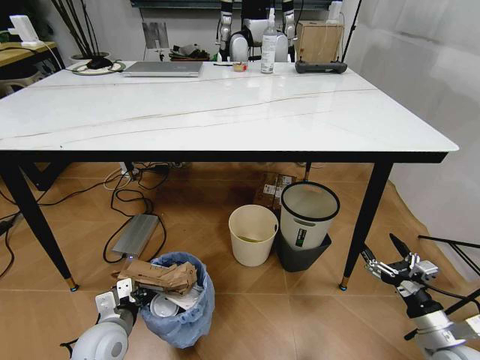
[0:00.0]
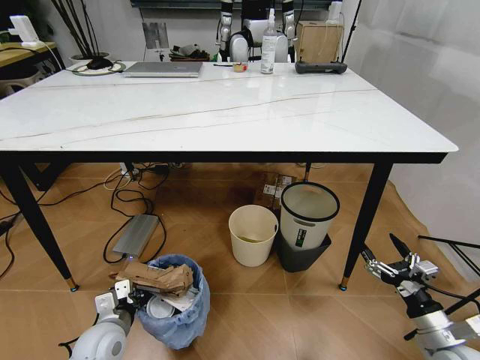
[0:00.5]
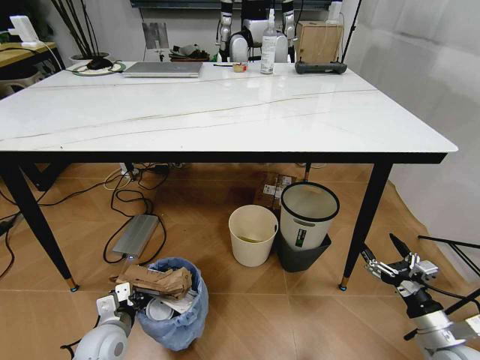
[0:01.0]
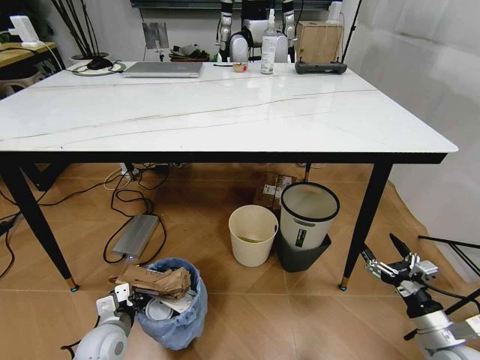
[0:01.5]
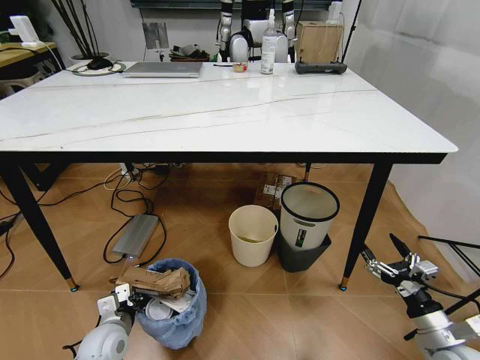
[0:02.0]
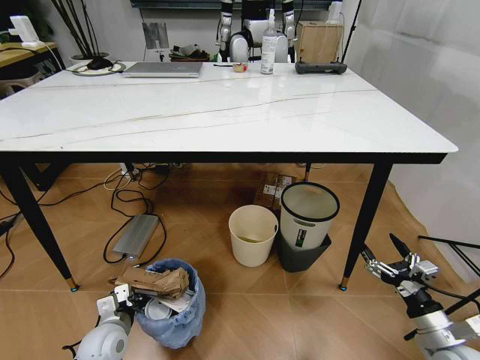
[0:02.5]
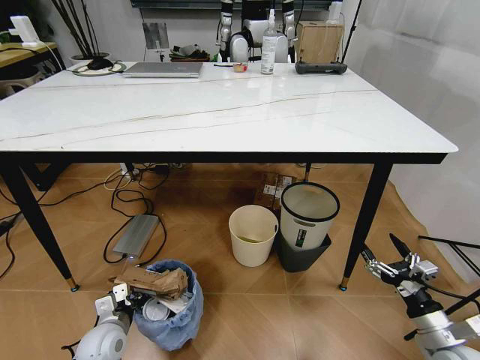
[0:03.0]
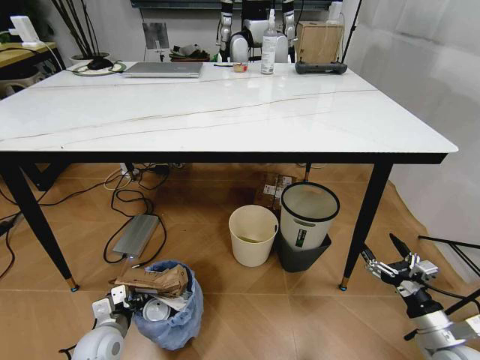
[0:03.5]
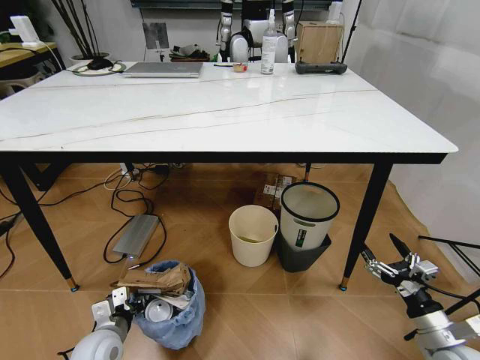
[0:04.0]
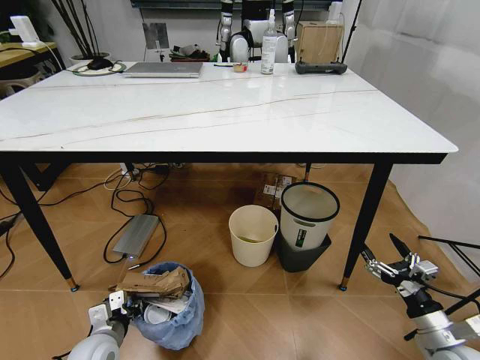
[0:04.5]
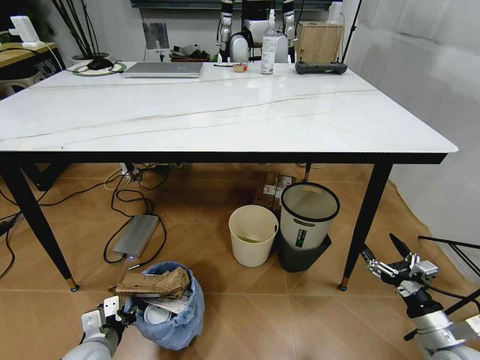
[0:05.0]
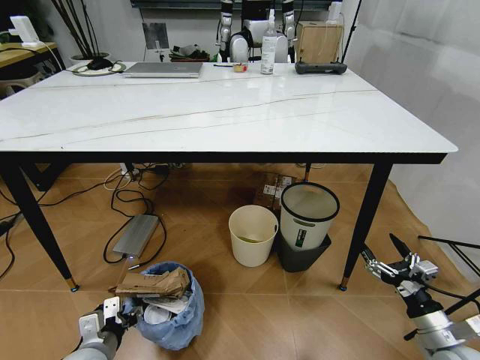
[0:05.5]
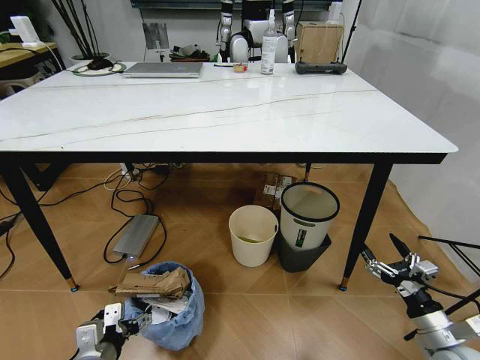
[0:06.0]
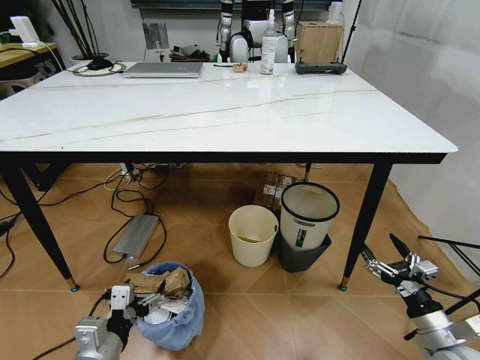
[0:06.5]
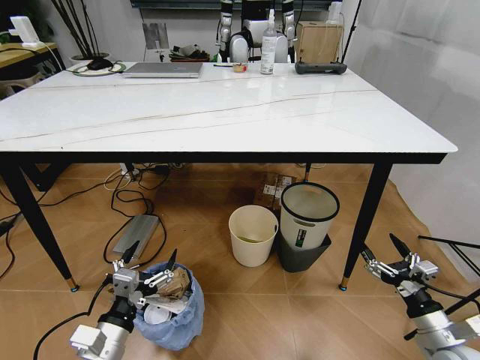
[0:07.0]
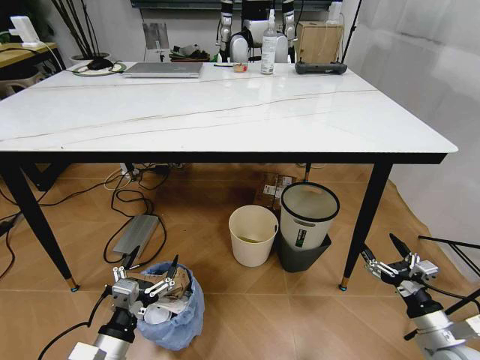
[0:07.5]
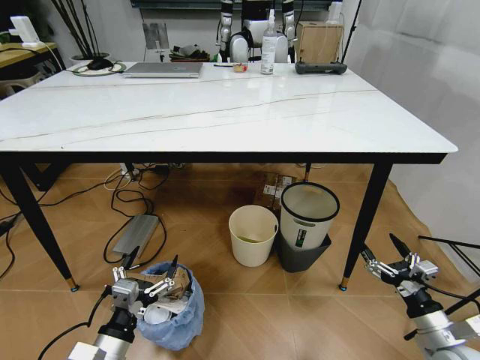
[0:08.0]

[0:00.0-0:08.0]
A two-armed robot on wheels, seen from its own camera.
Task of the whole recording: Pick up the trash bin and place the trash from the table into it.
0:00.0 to 0:02.0: The left gripper shifts some 5 cm downward.
0:02.0 to 0:04.0: The grippers move only a little.
0:04.0 to 0:06.0: The left gripper is displaced backward and upward by some 10 cm, and opens up.
0:06.0 to 0:08.0: The left gripper shifts by about 5 cm.

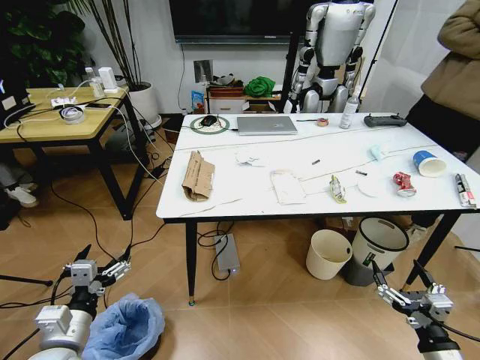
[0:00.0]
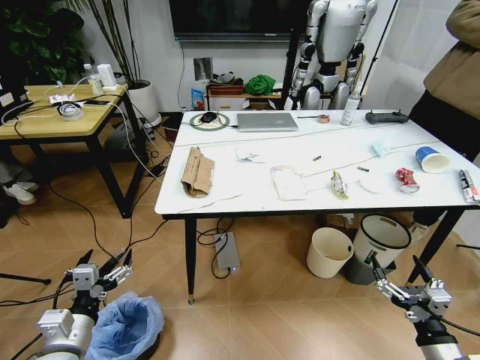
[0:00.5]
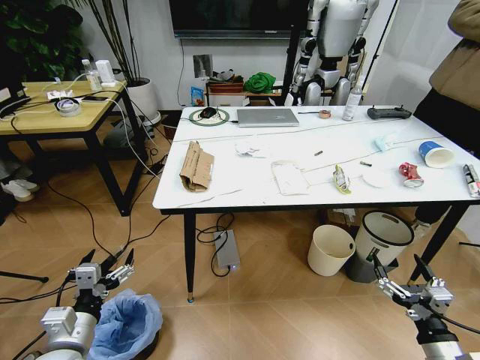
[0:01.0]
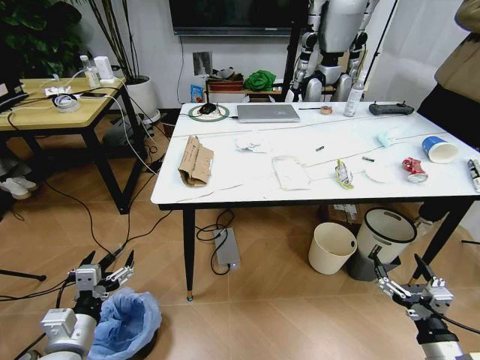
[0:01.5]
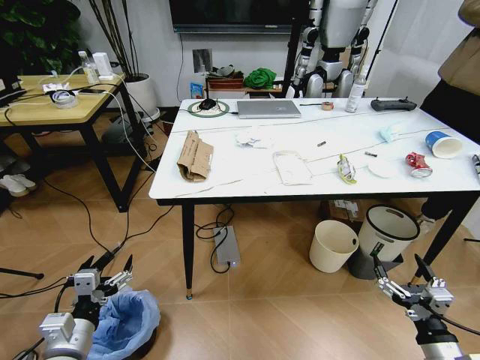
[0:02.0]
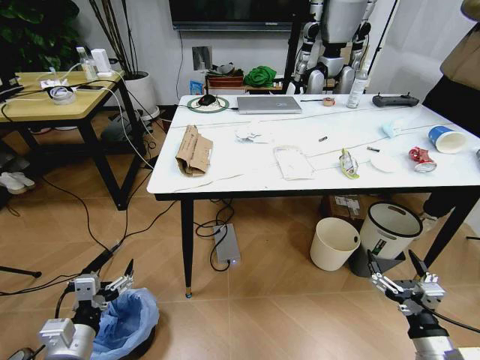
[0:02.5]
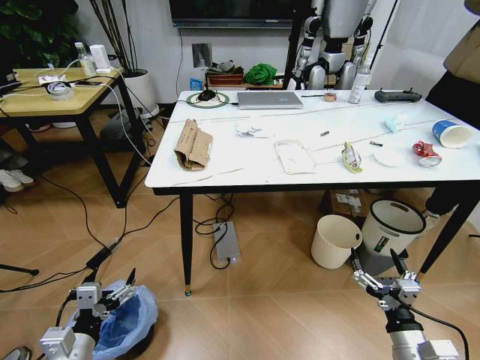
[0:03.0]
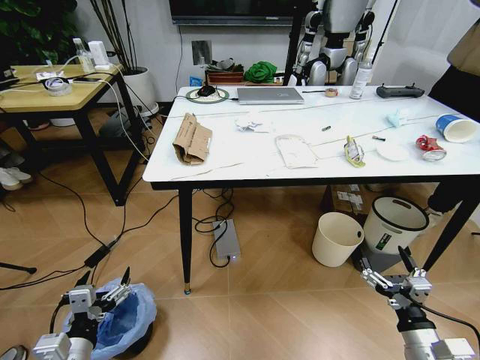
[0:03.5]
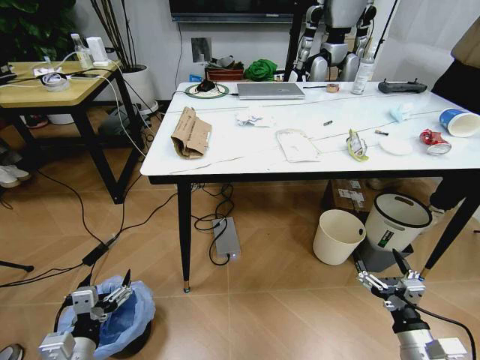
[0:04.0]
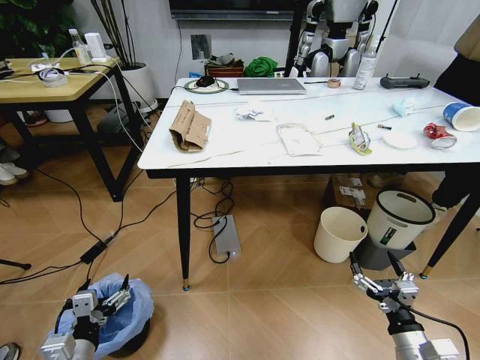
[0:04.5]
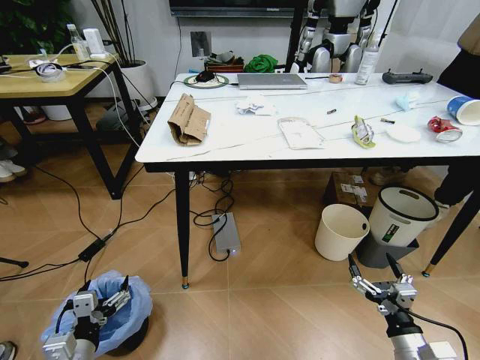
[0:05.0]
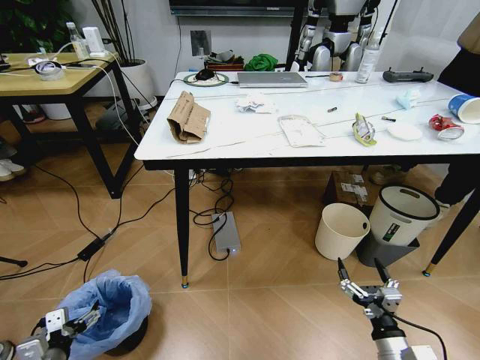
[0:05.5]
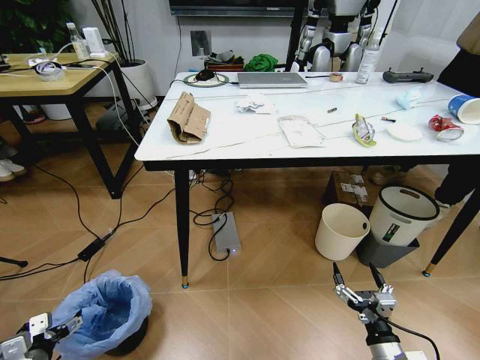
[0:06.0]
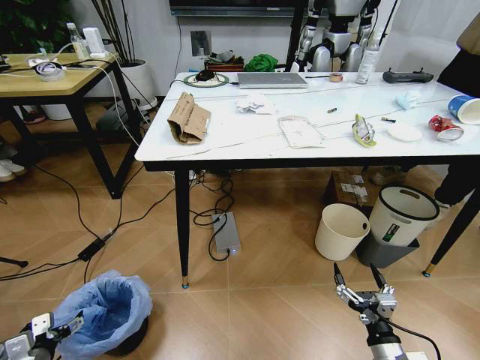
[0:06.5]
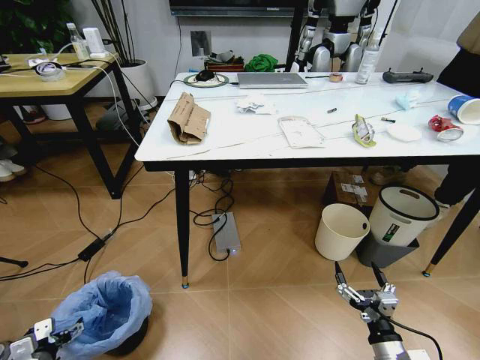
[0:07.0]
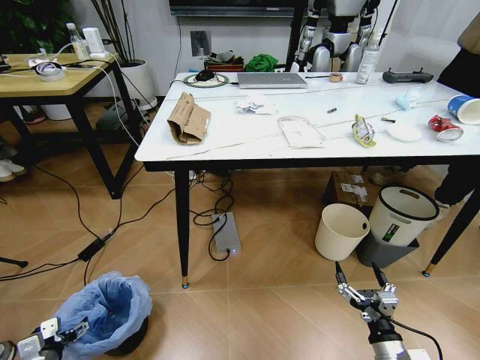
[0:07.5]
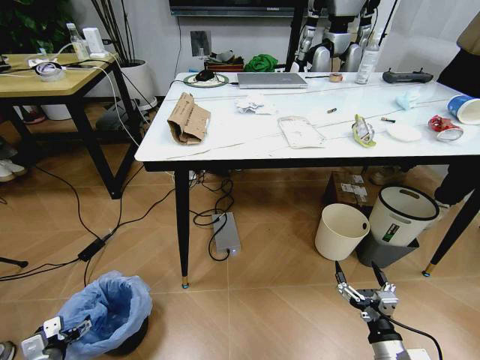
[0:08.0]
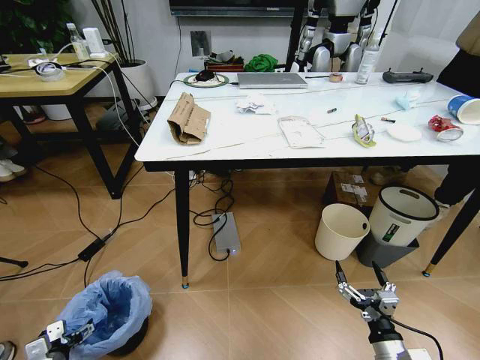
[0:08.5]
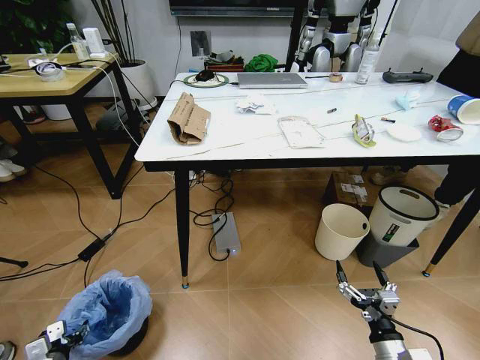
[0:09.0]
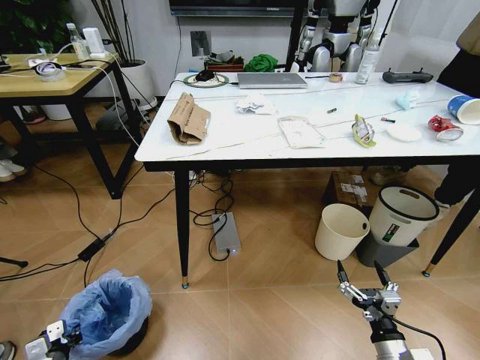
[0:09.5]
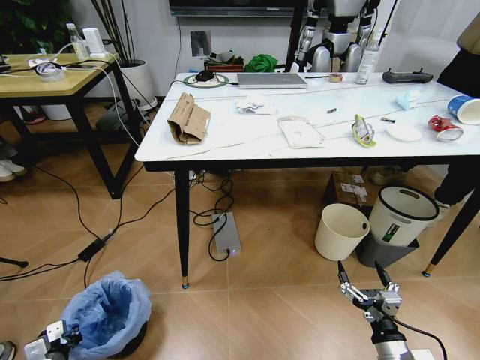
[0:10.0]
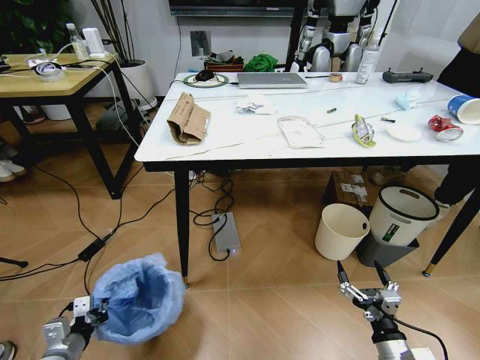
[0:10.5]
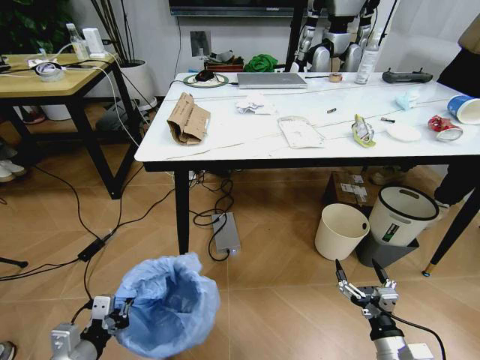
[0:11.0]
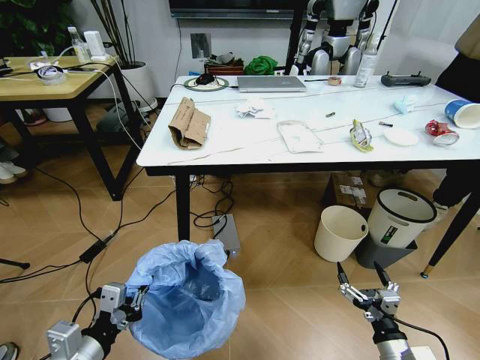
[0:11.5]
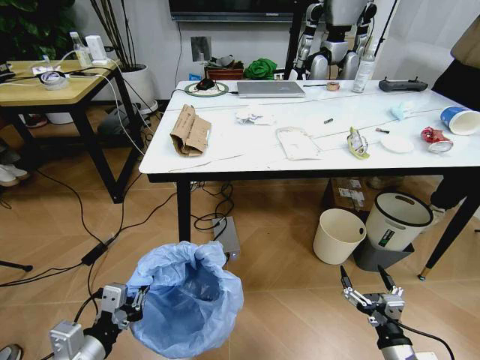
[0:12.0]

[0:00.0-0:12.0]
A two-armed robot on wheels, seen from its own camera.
Task of the whole recording: Pick up the trash bin and place the trash from the table into it.
0:04.0 to 0:06.0: The right gripper changes place by about 5 cm. Meanwhile the left gripper heads to the left and downward, covering roughly 20 cm.
0:06.0 to 0:08.0: The left gripper heads downward, covering some 5 cm.
0:08.0 to 0:10.0: The left gripper closes its fingers.
0:10.0 to 0:12.0: The left gripper travels upward and to the right by some 30 cm.

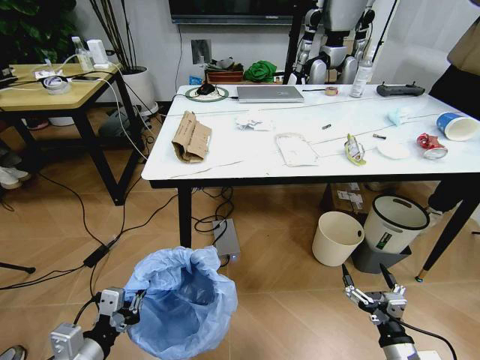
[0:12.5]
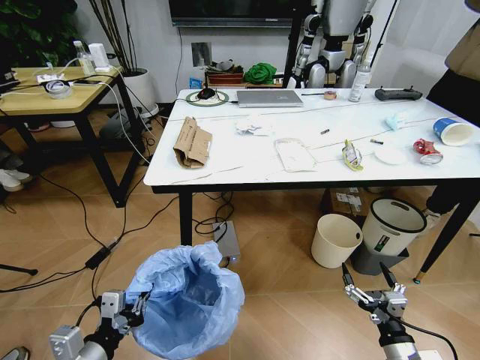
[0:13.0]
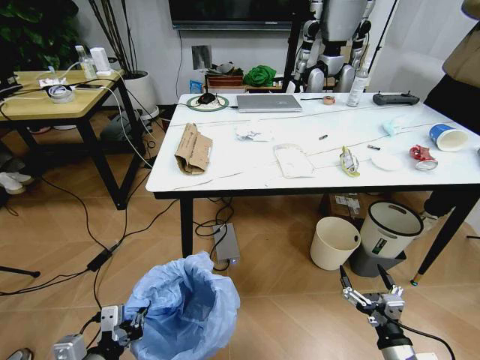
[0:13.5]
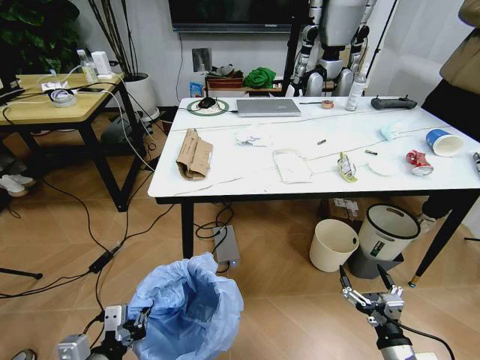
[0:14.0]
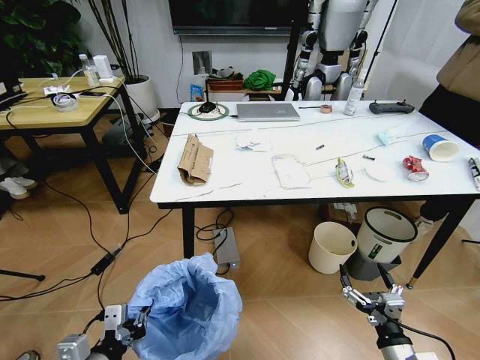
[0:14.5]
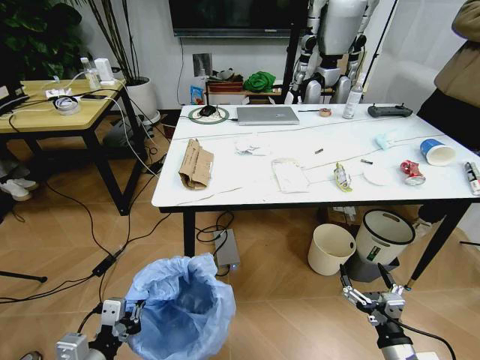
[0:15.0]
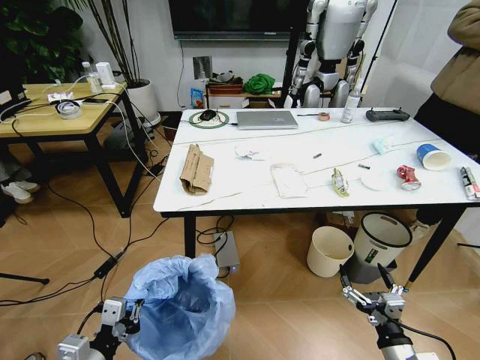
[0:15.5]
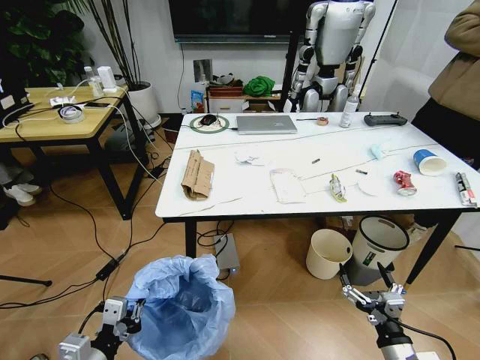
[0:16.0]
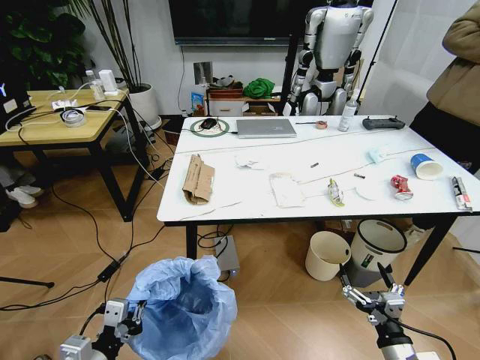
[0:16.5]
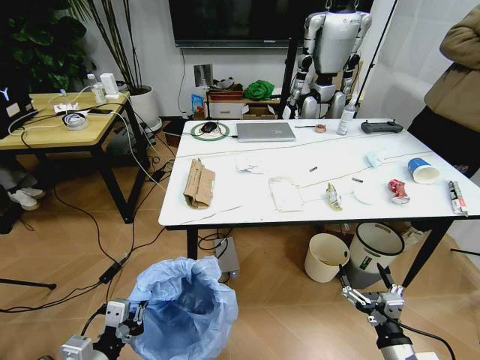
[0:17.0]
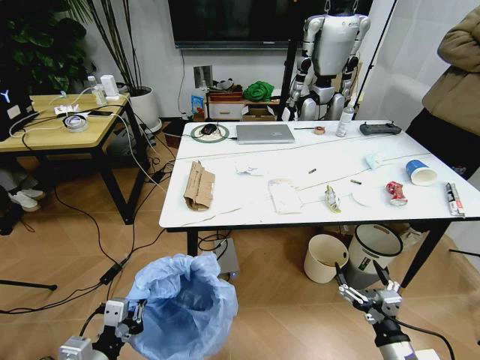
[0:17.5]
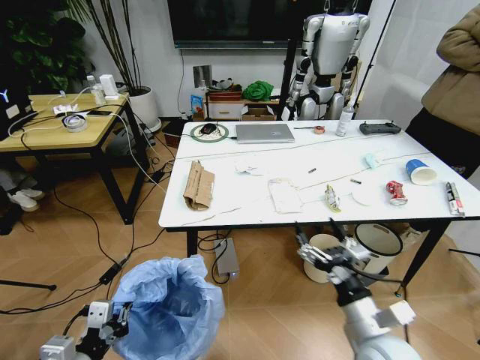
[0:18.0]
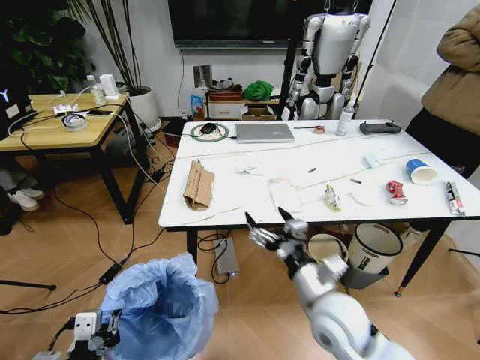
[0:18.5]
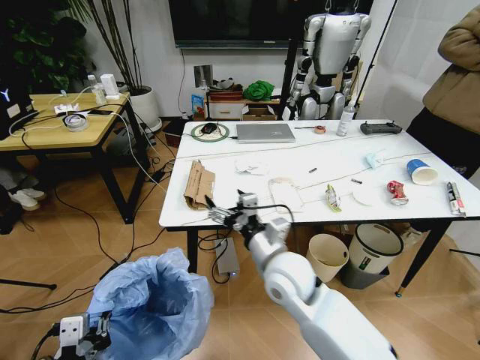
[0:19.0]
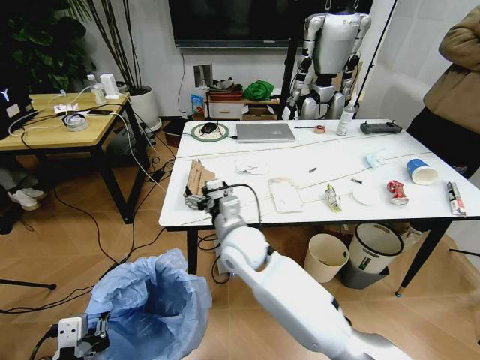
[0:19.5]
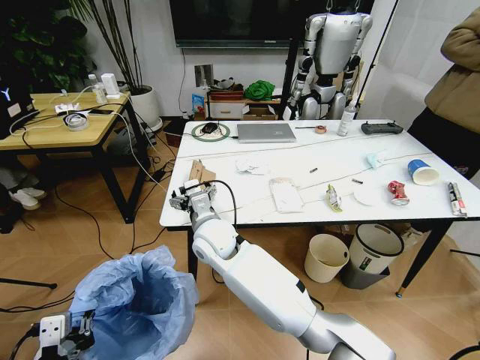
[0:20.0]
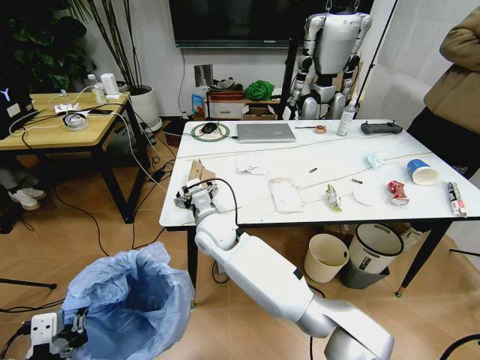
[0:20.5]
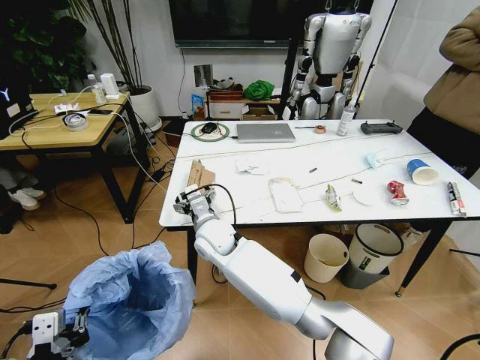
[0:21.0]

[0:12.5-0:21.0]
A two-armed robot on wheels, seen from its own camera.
Task of the whole recording: Pick up the trash bin and place the trash from the table into it.
0:16.5 to 0:19.0: The left gripper shifts roughly 5 cm upward. Meanwhile the right gripper shifts some 35 cm to the left, forward and upward.
0:19.0 to 0:21.0: The right gripper shifts some 20 cm to the left and forward.
